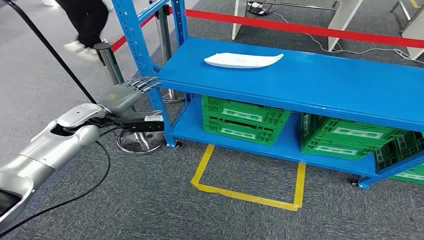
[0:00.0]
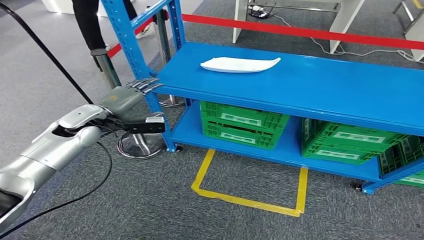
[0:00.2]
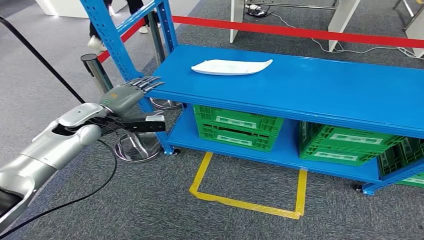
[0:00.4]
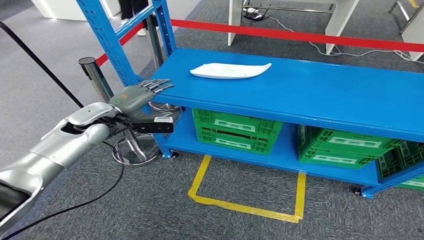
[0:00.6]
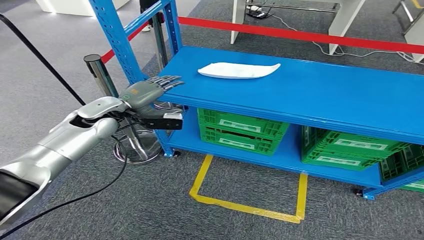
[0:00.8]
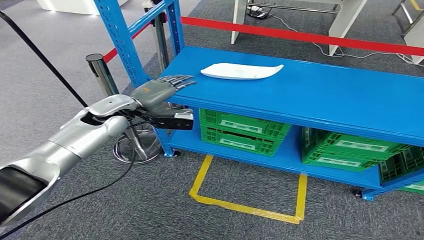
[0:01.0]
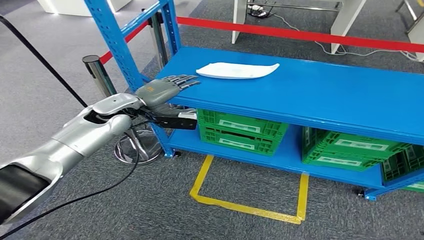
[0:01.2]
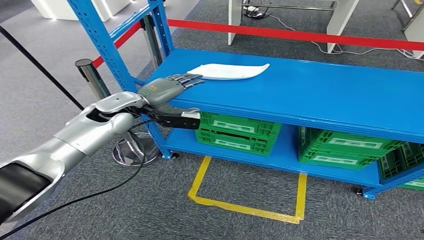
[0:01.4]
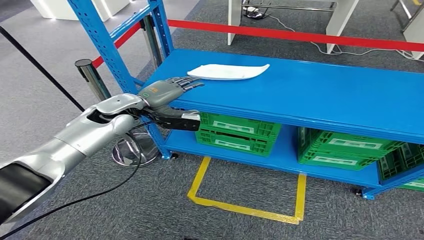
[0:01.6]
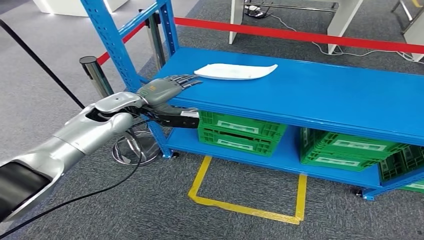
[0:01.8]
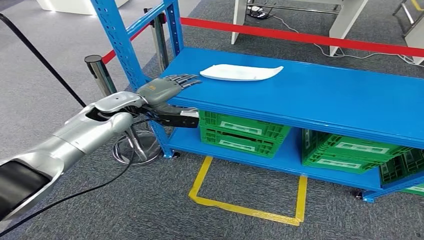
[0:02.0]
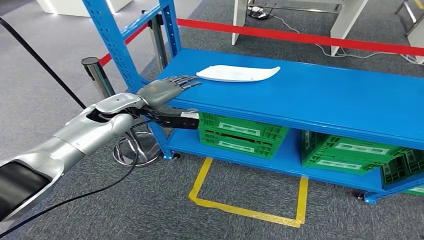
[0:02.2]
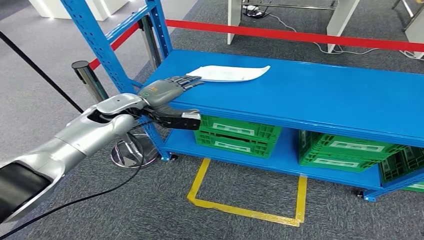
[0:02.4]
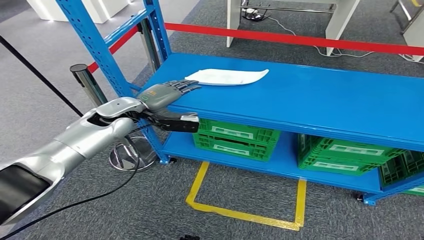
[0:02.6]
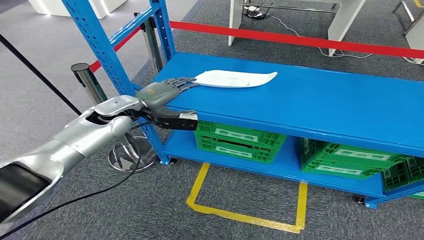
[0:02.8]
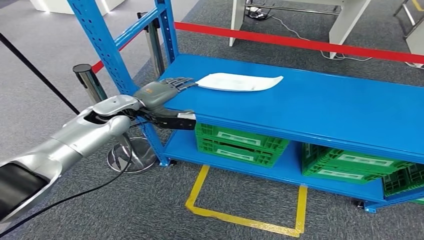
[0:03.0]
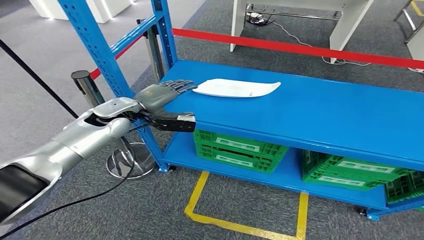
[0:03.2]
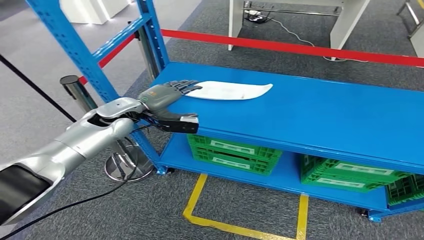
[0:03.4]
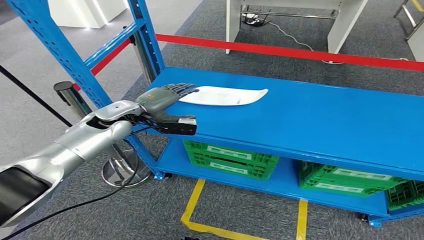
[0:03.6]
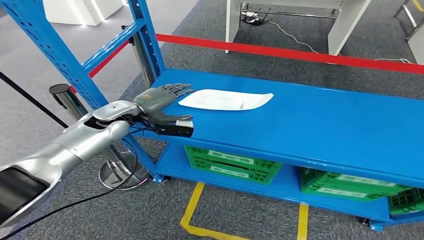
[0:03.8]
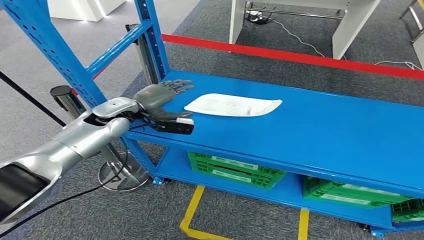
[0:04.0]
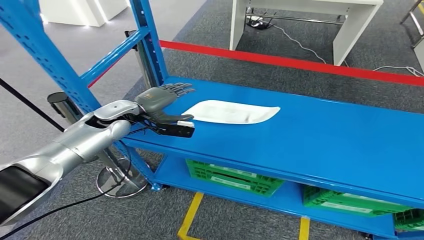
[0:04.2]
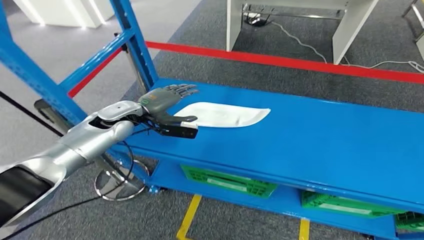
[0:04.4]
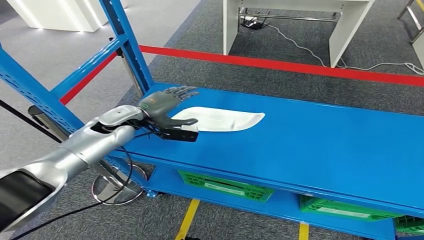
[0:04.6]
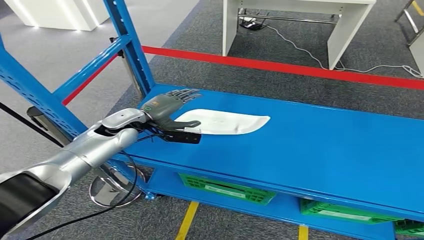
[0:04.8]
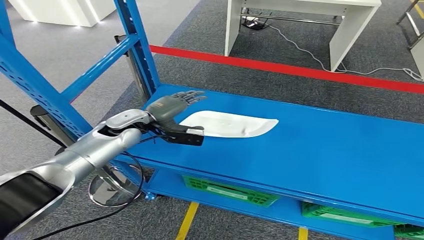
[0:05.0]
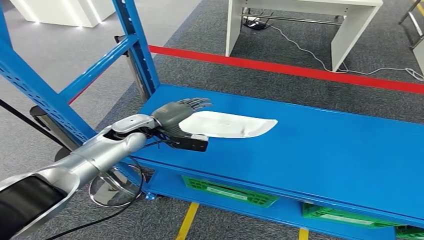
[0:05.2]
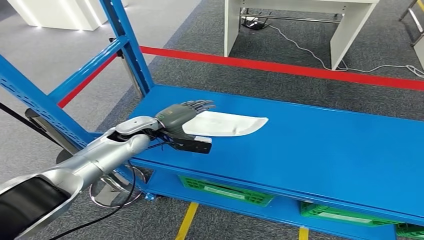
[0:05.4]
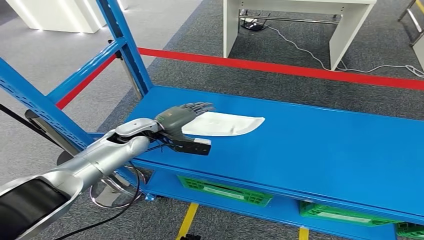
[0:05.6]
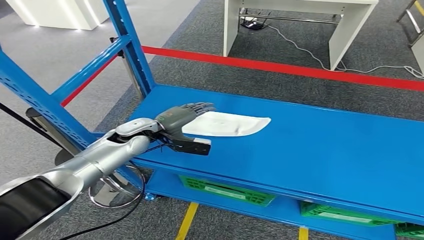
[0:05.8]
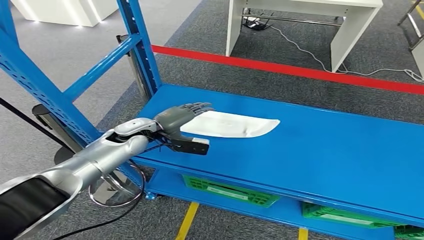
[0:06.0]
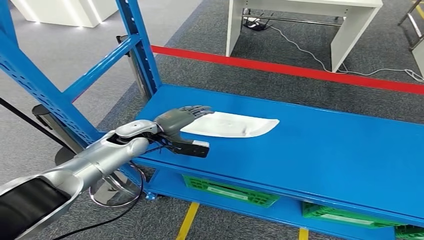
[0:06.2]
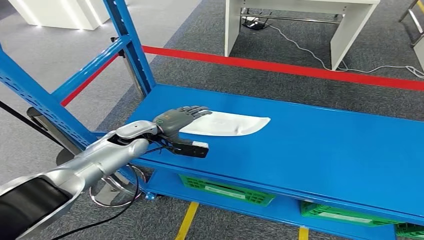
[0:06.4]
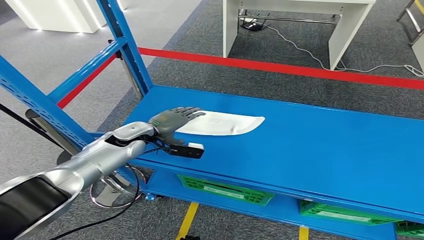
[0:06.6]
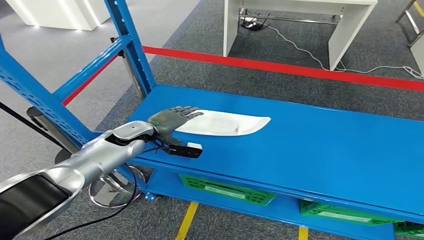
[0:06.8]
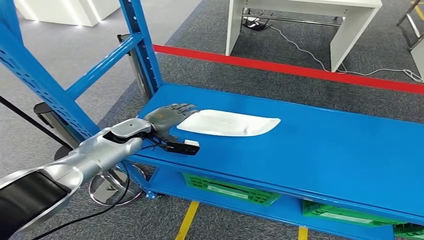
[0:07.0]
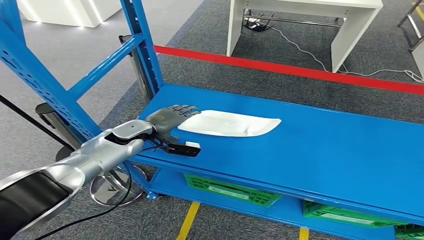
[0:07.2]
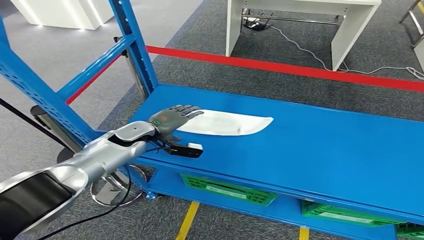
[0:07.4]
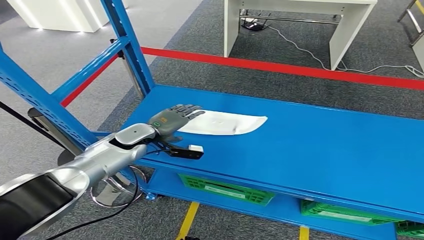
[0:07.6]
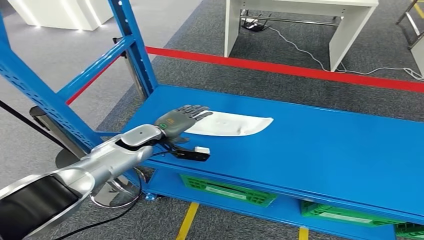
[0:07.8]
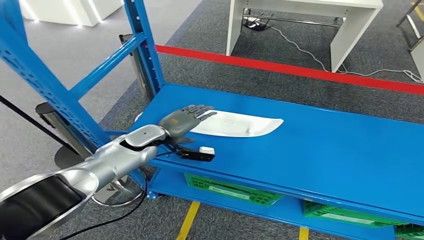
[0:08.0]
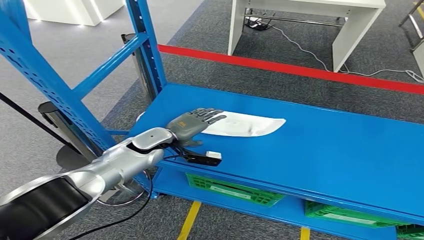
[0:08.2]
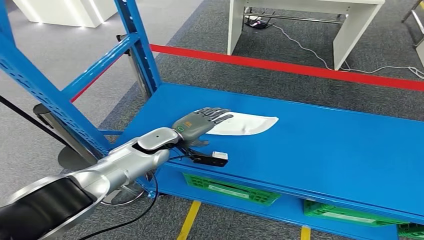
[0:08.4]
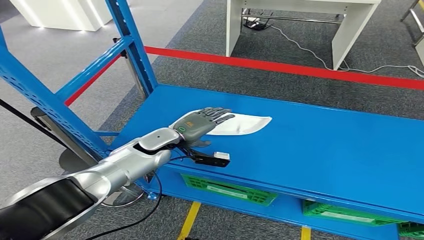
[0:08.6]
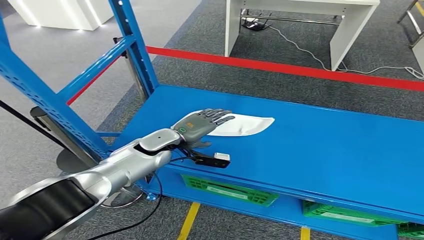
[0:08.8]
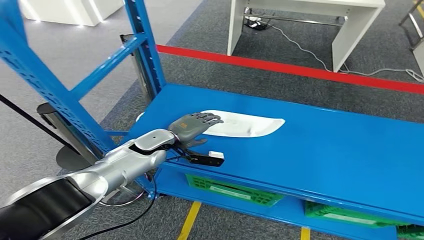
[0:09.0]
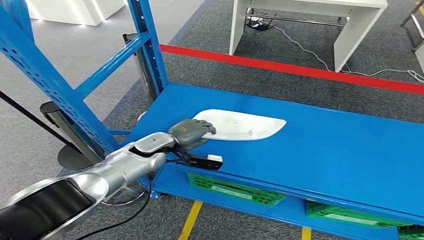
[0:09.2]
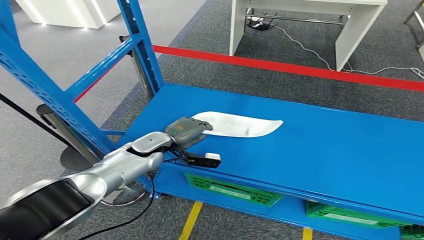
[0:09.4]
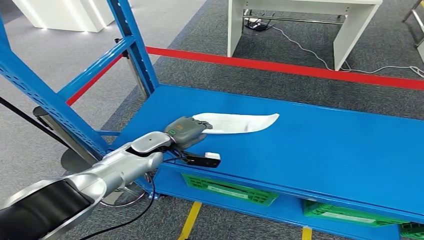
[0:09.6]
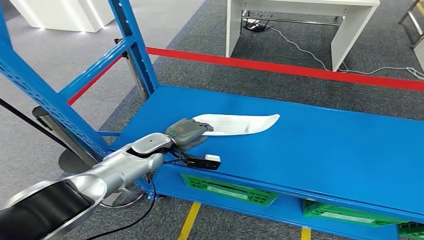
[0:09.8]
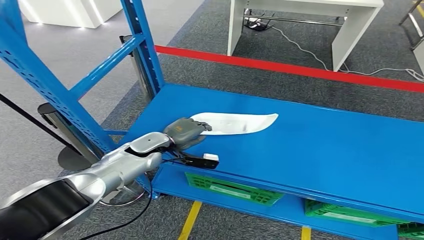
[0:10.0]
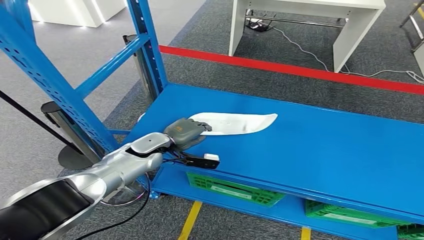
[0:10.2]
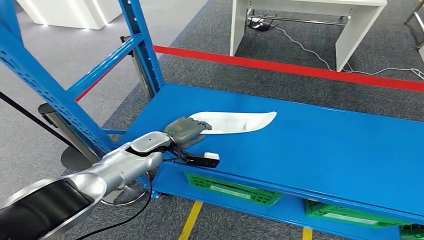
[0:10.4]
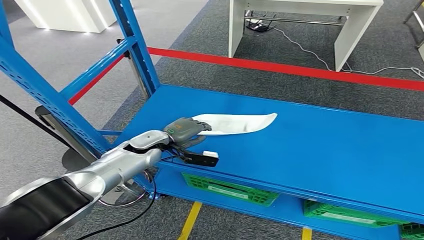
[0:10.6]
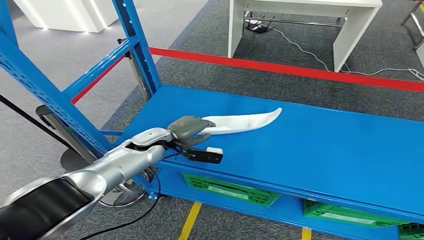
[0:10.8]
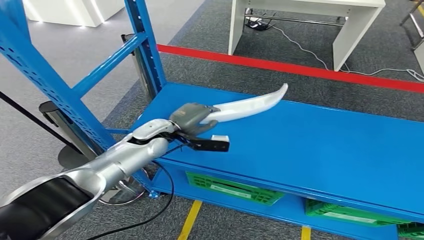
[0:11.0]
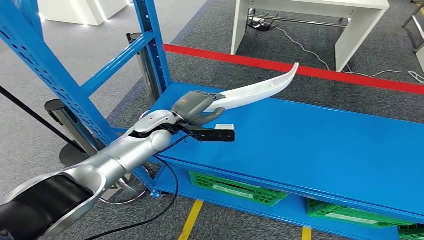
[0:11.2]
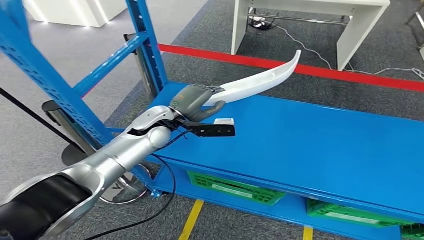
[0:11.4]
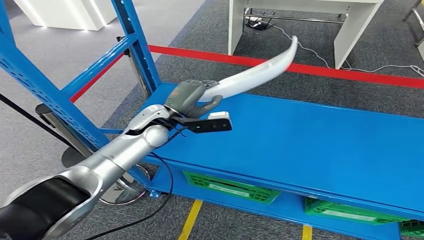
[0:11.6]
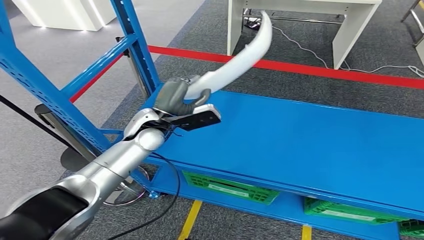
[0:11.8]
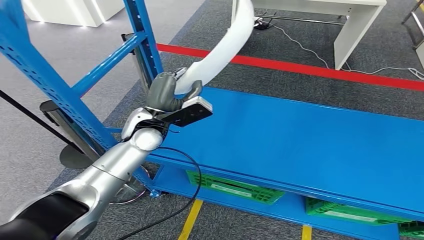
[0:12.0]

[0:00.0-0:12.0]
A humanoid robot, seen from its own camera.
0:09.0 to 0:10.4: The hands stay close to where they were, moving slightly.

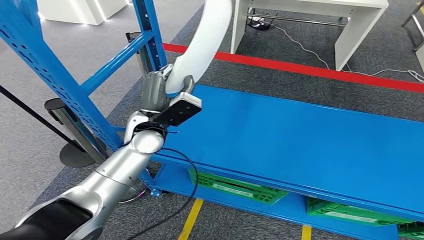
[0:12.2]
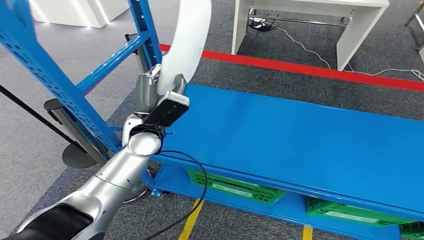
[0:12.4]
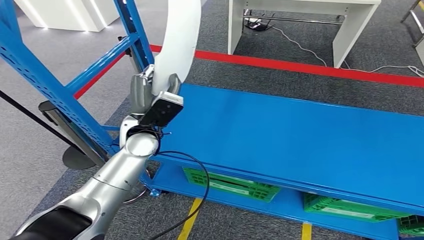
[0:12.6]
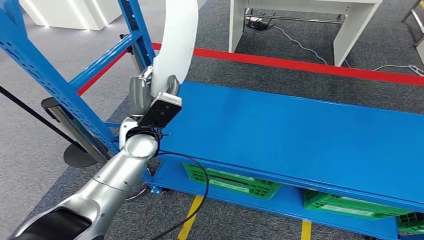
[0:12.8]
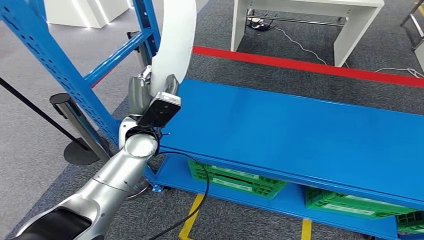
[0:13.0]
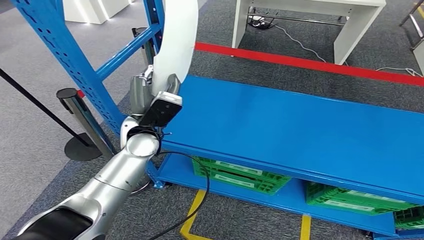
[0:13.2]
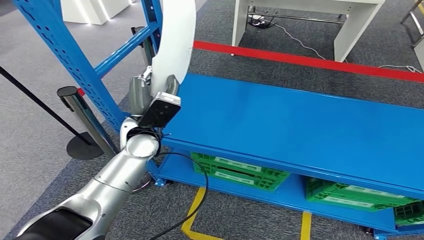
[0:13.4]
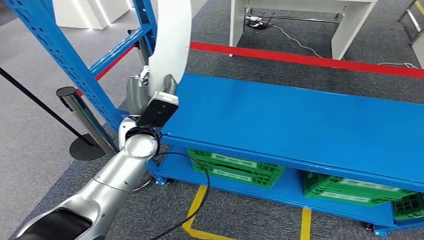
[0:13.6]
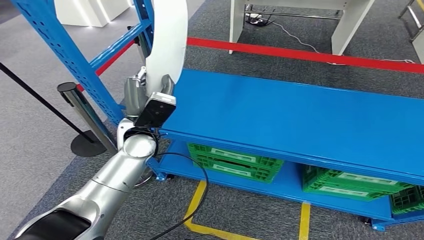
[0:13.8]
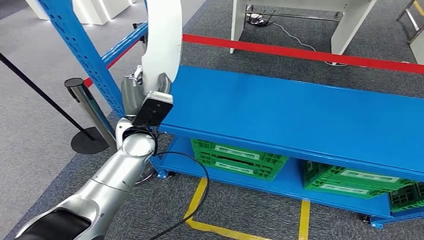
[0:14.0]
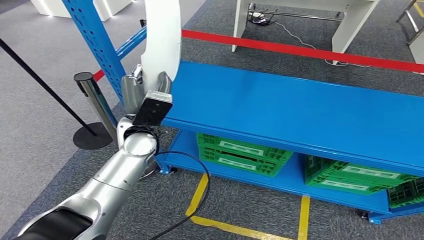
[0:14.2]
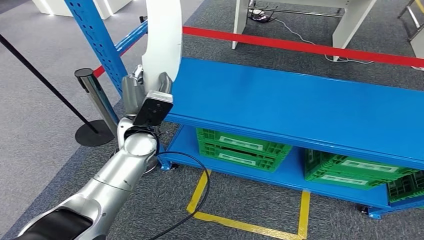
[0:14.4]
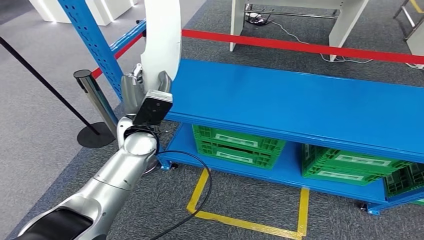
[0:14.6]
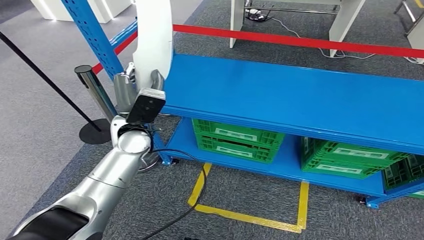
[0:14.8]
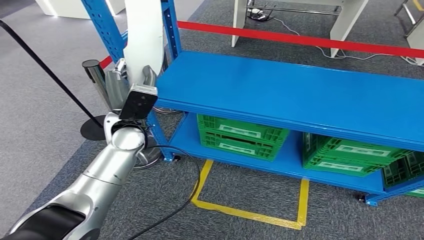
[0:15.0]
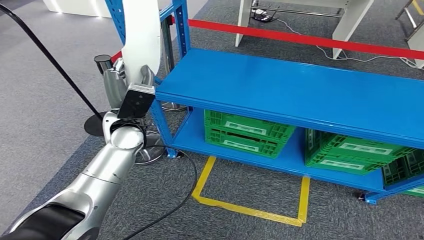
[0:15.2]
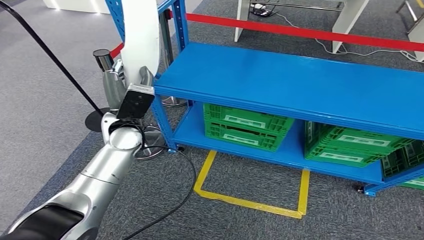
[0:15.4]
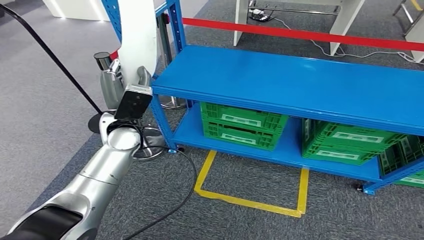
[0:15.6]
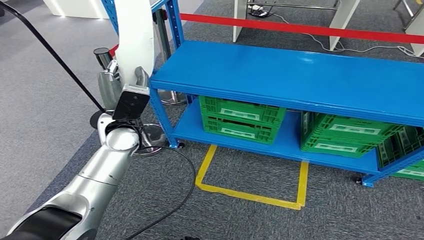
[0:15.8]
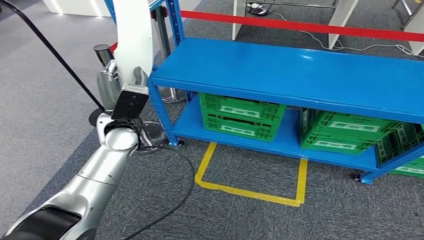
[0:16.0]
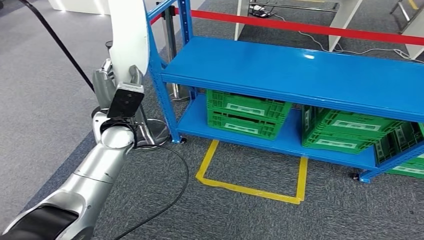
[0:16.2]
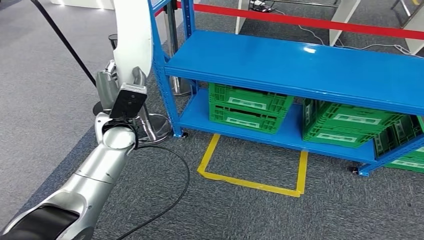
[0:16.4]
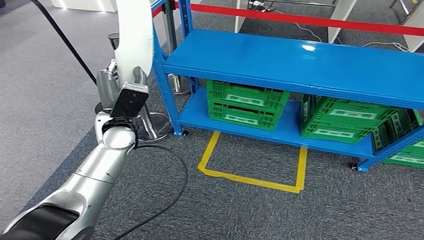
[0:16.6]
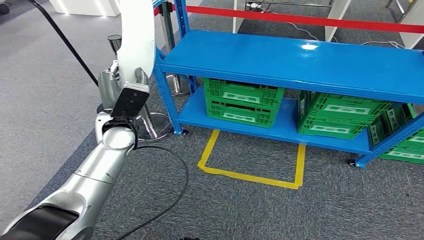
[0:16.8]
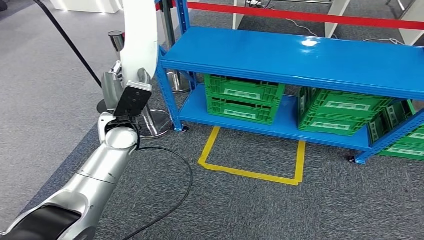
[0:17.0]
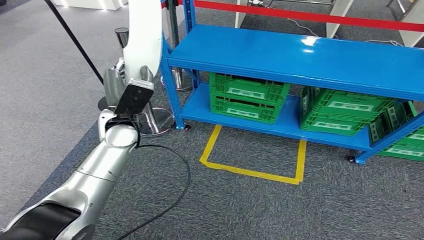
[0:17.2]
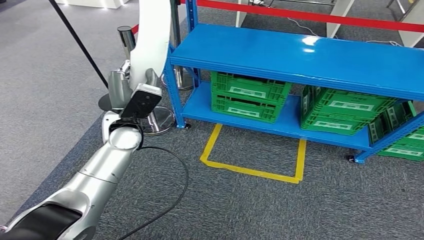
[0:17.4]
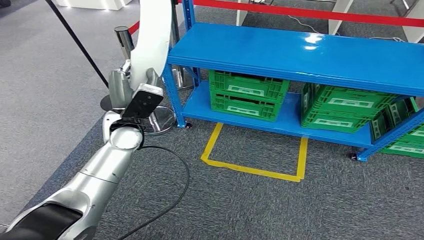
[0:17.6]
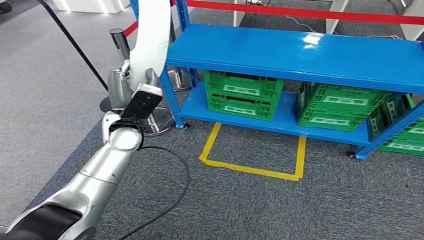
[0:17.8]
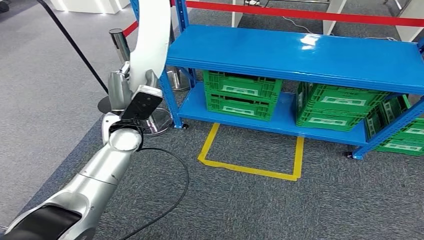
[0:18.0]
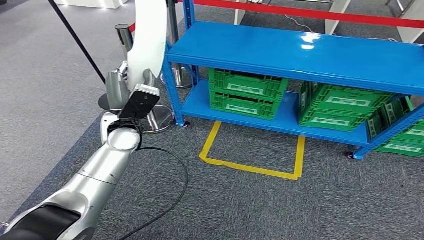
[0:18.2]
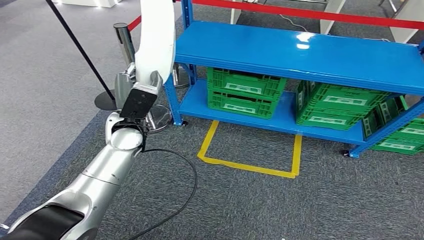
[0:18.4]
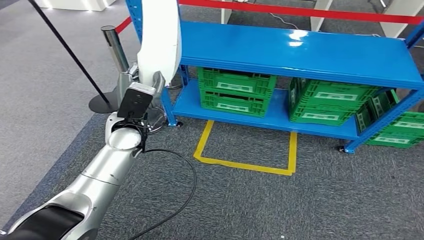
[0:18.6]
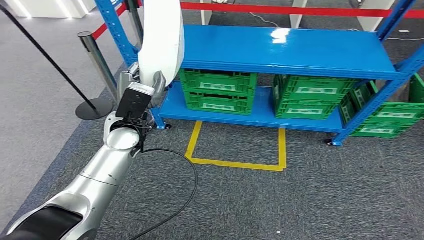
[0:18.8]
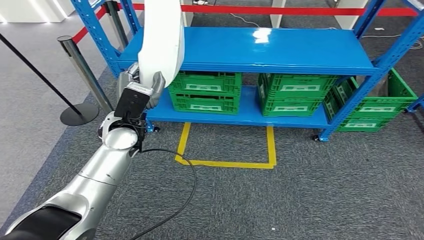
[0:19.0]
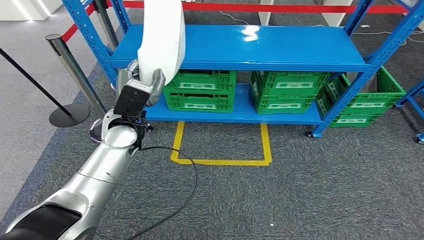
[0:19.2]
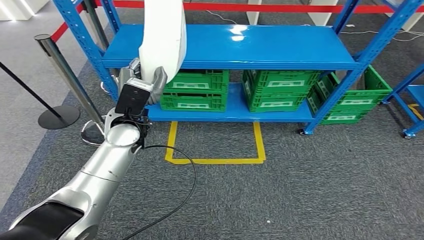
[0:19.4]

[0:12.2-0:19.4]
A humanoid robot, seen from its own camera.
Step, 0:12.2 to 0:16.0: Pick up the small parts from the shelf.
